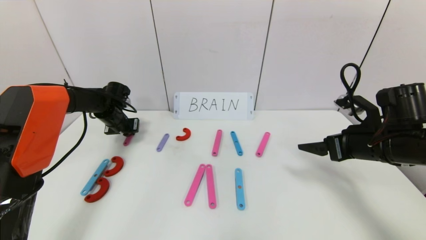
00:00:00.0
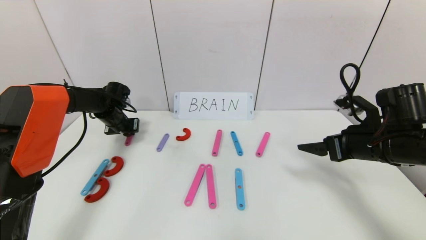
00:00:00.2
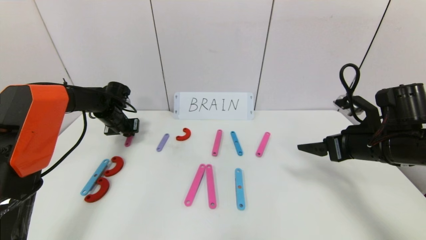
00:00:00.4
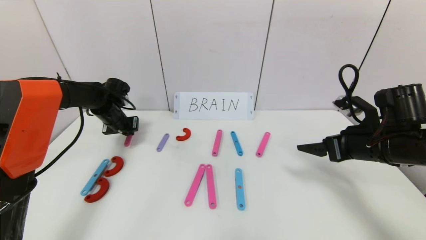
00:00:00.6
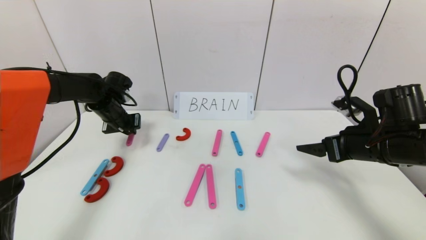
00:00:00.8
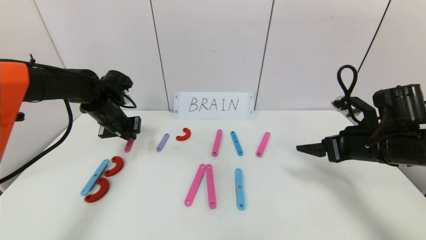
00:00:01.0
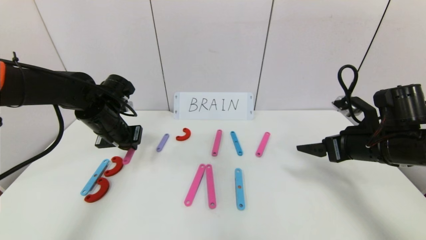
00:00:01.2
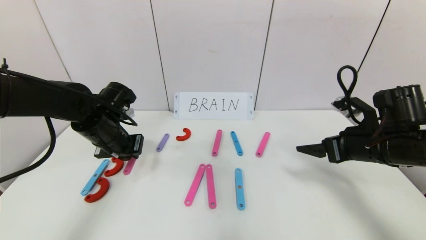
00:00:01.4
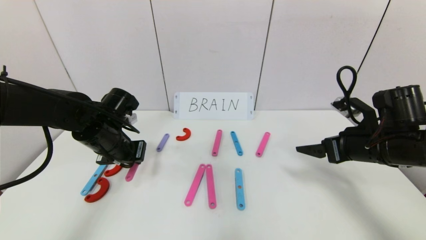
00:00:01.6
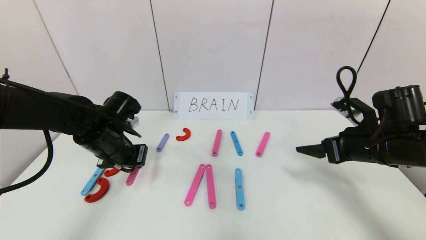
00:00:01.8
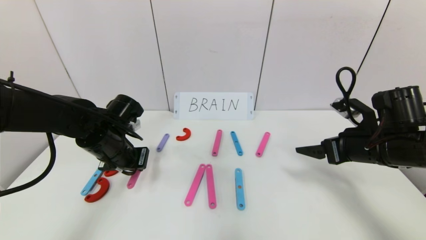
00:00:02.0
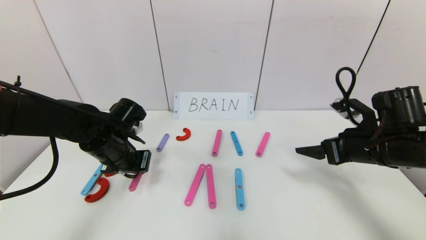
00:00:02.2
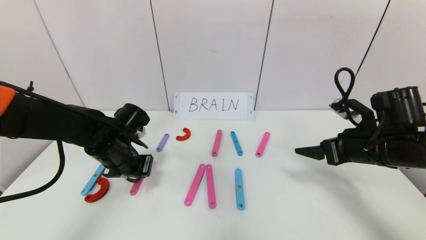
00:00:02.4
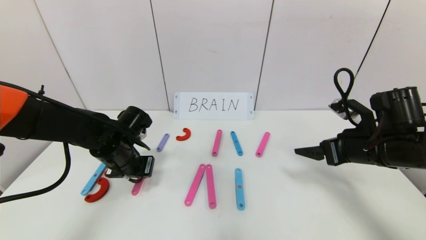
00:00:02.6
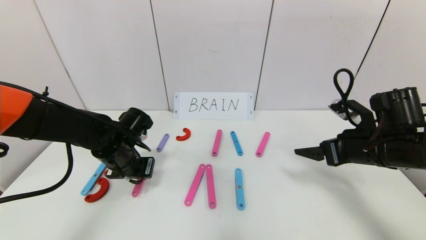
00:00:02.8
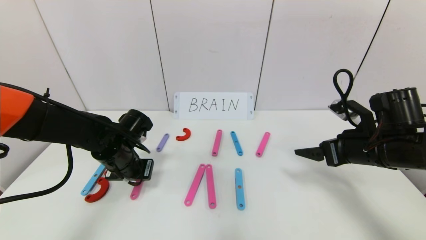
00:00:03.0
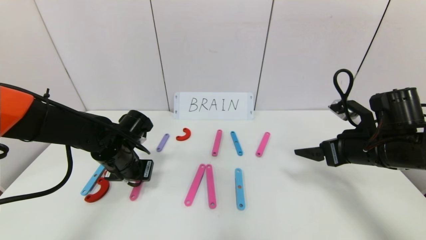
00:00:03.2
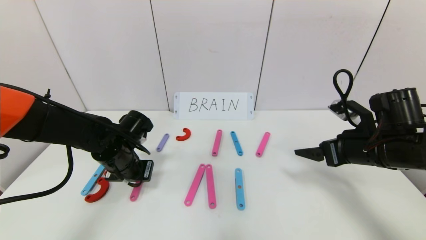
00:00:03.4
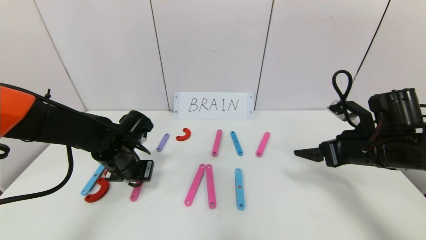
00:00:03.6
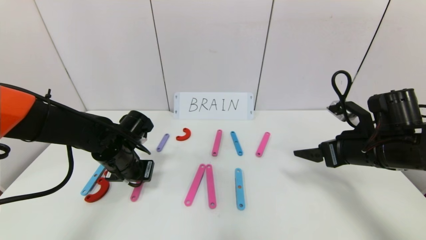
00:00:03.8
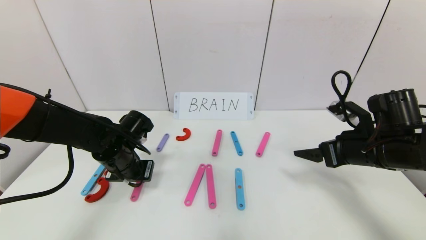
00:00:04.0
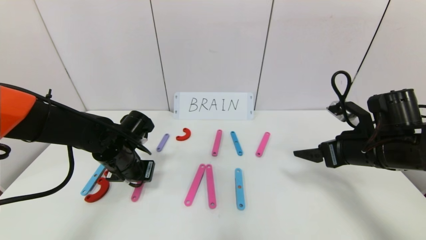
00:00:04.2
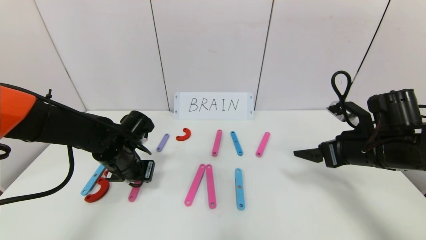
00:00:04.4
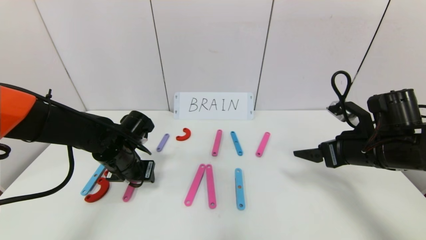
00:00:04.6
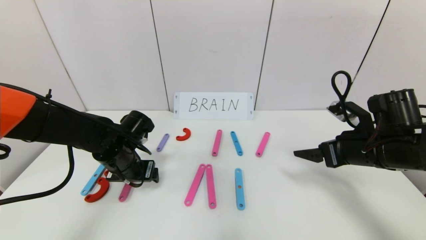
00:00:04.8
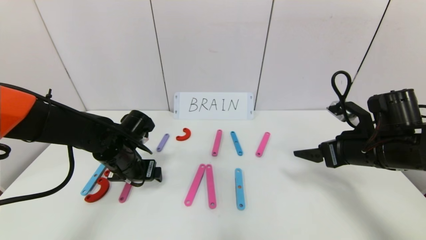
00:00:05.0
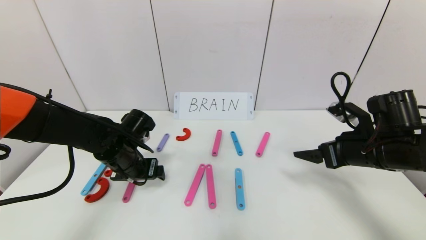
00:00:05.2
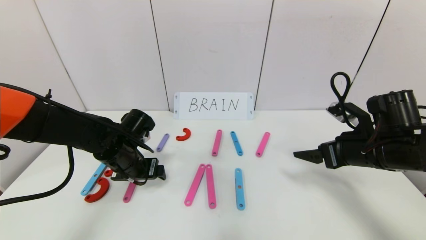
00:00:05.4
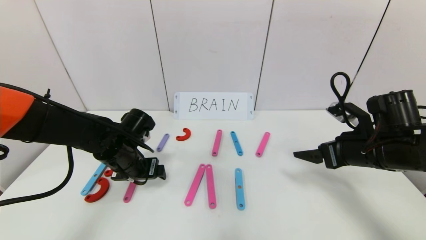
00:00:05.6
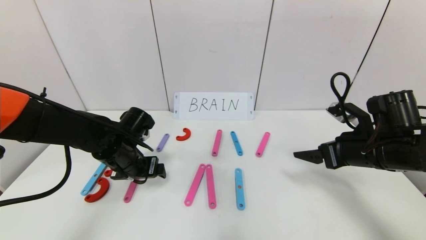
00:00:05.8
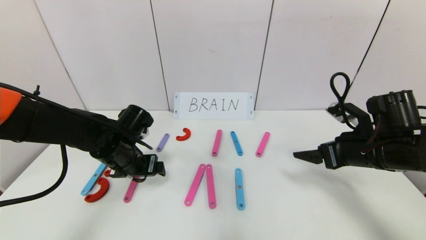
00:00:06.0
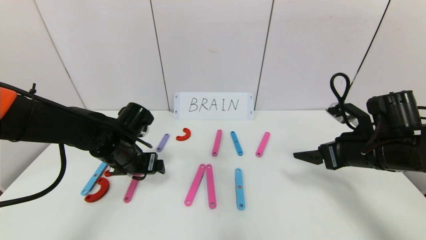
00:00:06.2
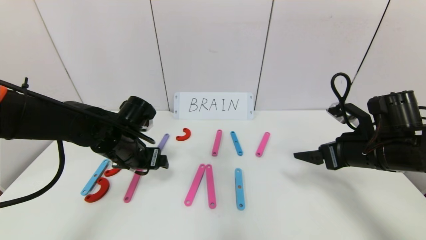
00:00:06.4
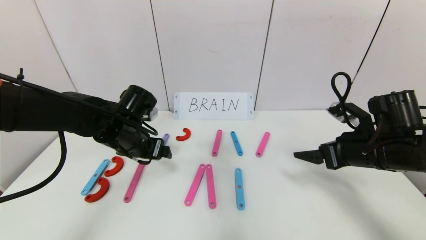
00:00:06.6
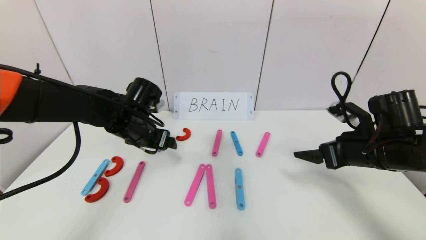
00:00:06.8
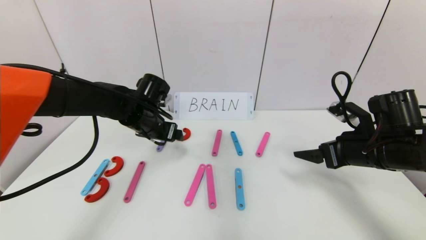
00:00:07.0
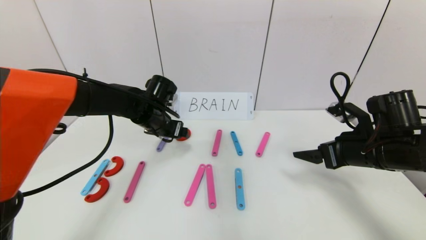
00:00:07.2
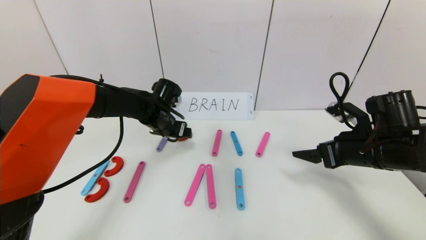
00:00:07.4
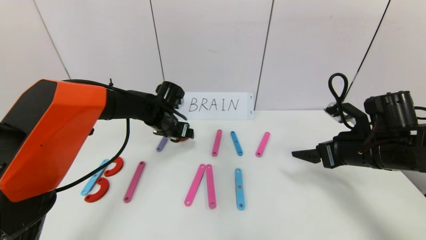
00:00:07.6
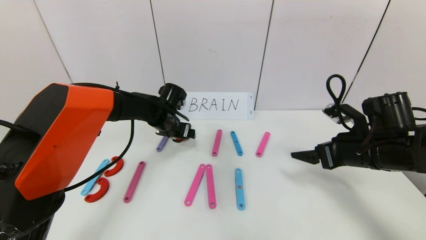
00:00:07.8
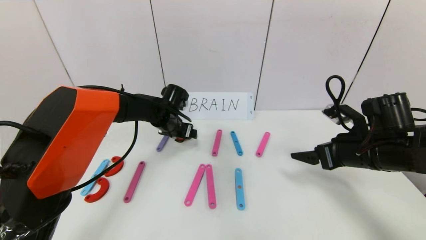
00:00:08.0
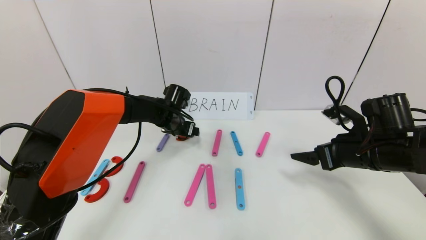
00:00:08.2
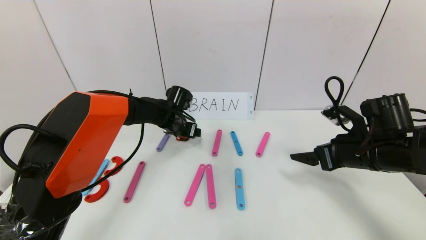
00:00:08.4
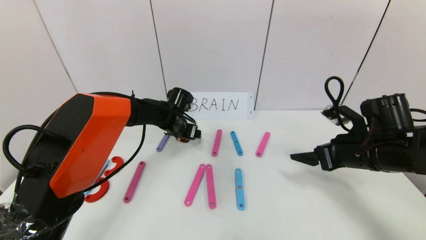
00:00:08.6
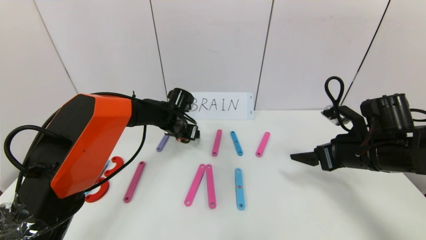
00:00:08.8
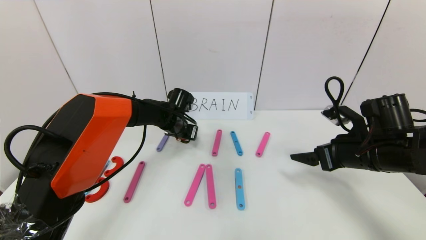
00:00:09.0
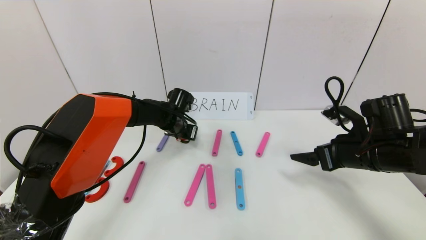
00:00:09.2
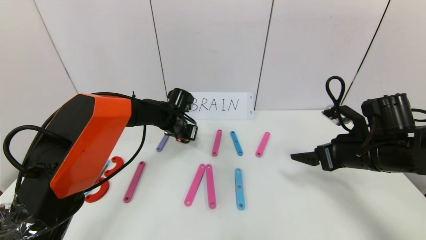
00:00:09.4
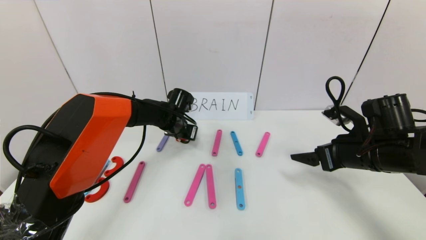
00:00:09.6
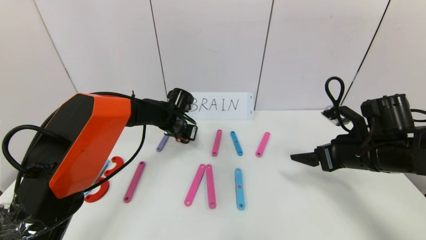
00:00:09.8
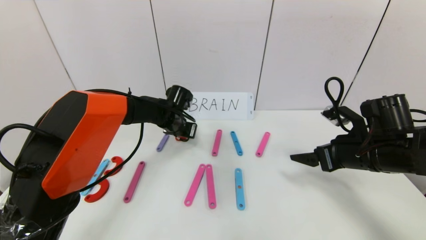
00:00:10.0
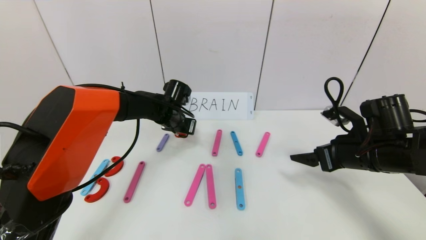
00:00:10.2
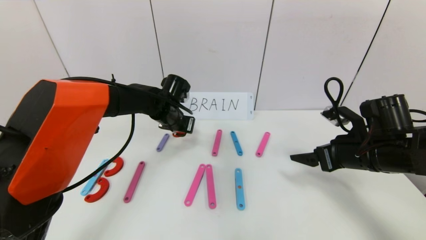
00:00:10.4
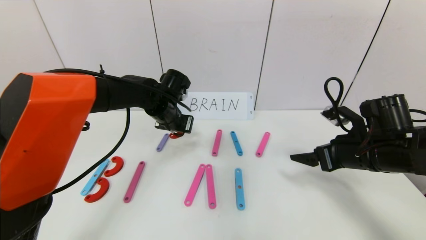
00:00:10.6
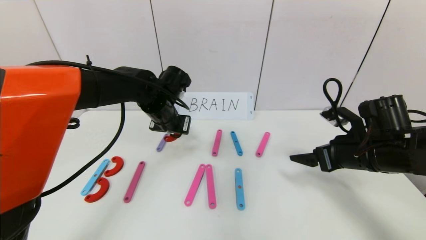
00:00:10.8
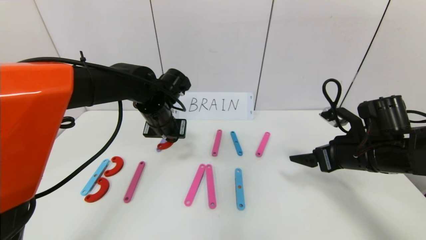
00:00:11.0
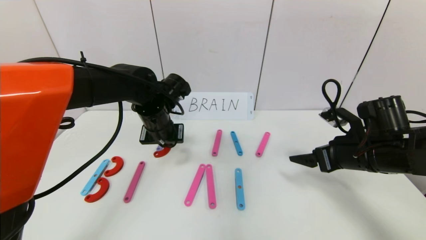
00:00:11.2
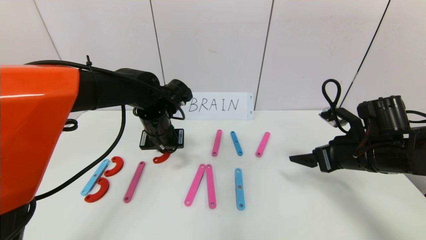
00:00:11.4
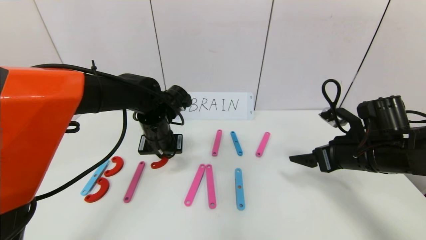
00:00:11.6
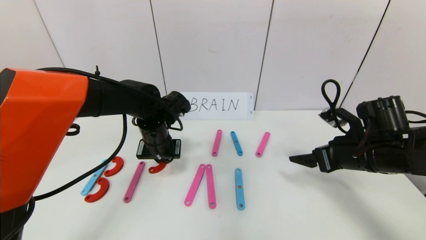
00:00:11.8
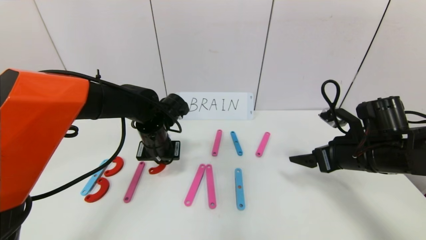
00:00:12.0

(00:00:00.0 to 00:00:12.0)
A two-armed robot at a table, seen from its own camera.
Task of the whole recording: rearrange the word baai as brain.
00:00:00.0 - 00:00:01.6: The left gripper shifts some 20 cm backward and to the right.
00:00:01.6 - 00:00:03.0: The grippers move only a little.
00:00:03.0 - 00:00:04.4: Both grippers stay put.
00:00:04.4 - 00:00:06.0: The left gripper opens.
00:00:06.0 - 00:00:07.6: The left gripper is displaced forward and to the right by some 15 cm.
00:00:07.6 - 00:00:09.0: The left gripper closes.
00:00:09.0 - 00:00:10.4: The left gripper goes about 5 cm upward, and closes its fingers.
00:00:10.4 - 00:00:12.0: The left gripper travels backward by approximately 5 cm.

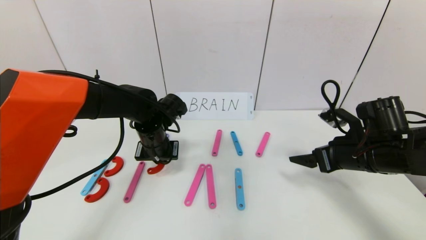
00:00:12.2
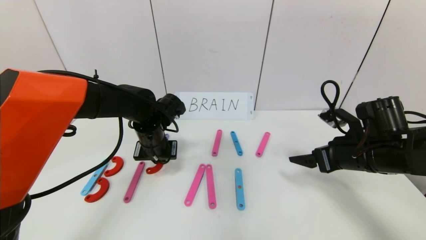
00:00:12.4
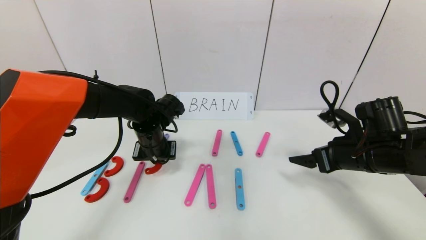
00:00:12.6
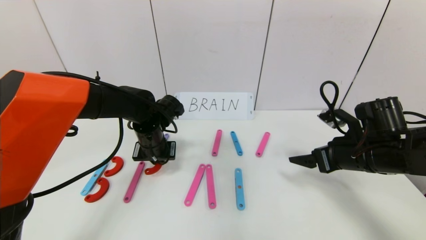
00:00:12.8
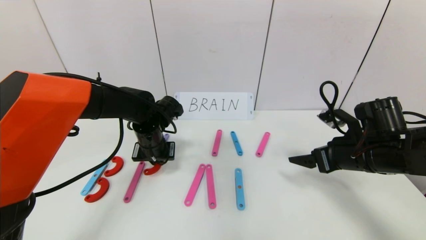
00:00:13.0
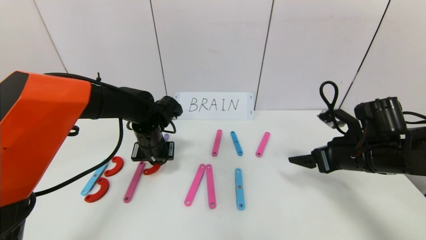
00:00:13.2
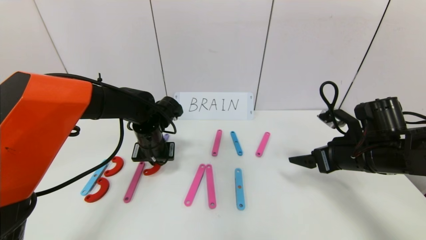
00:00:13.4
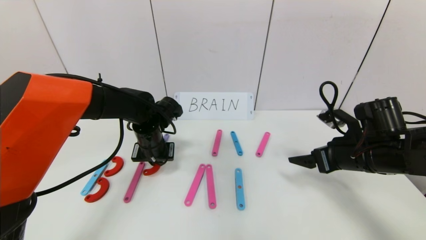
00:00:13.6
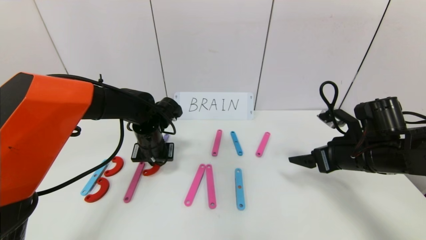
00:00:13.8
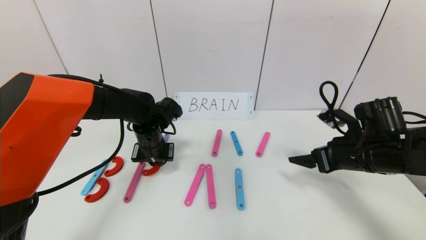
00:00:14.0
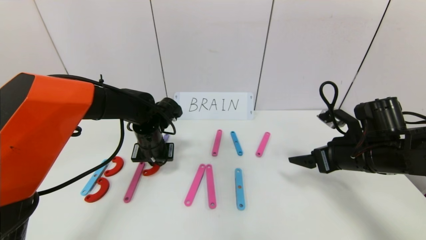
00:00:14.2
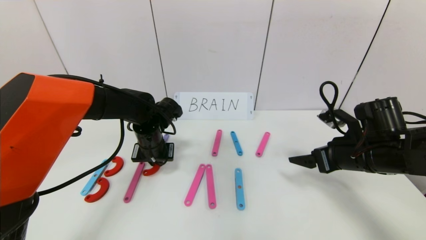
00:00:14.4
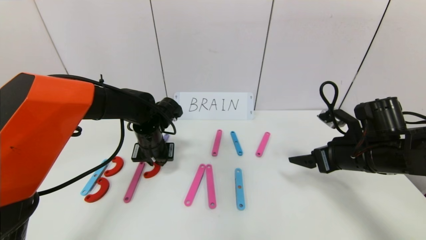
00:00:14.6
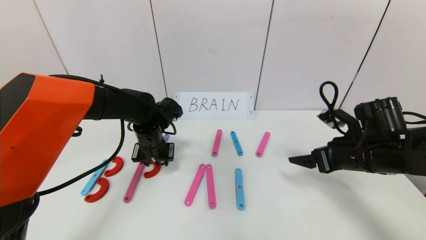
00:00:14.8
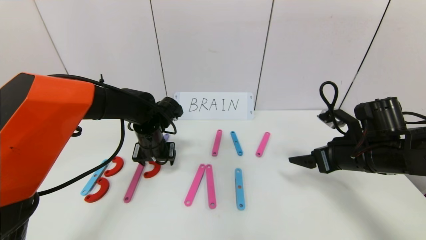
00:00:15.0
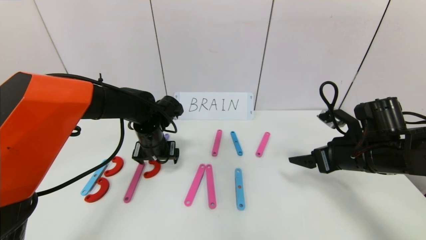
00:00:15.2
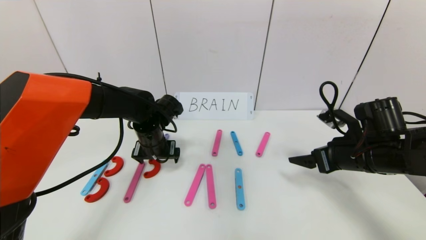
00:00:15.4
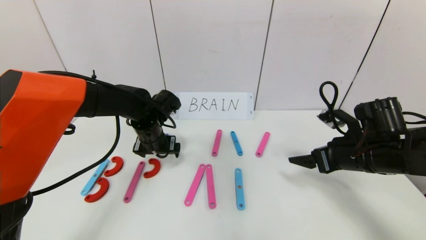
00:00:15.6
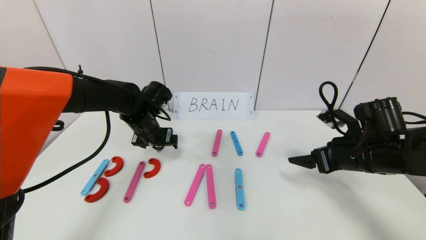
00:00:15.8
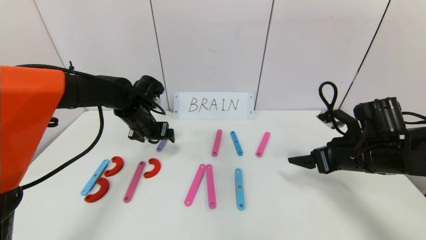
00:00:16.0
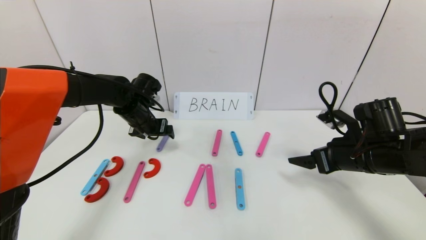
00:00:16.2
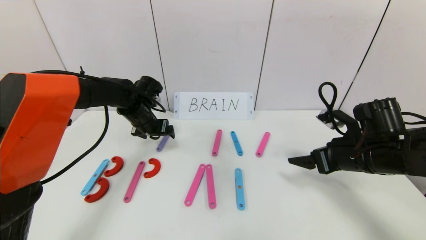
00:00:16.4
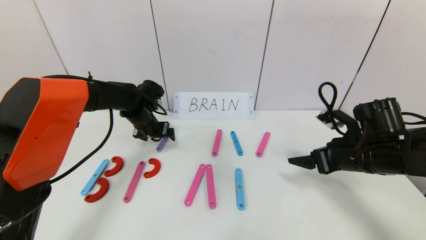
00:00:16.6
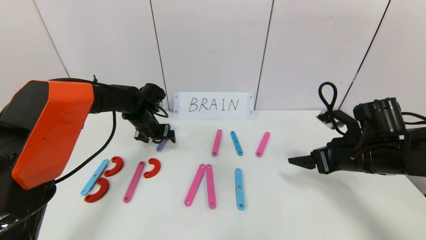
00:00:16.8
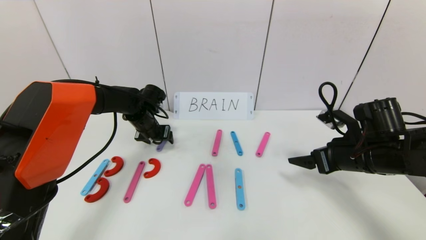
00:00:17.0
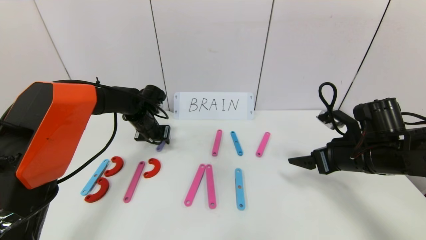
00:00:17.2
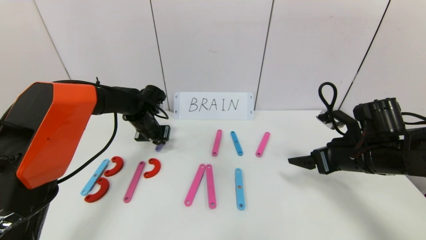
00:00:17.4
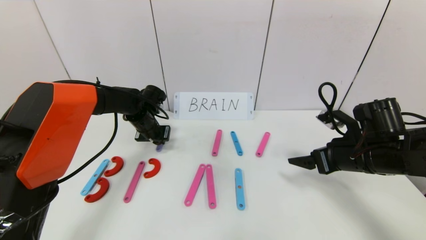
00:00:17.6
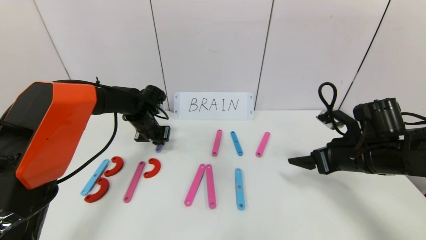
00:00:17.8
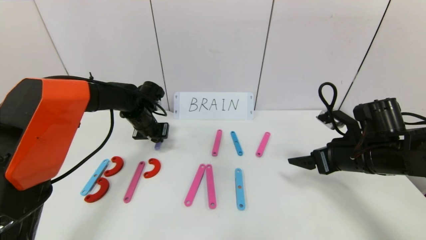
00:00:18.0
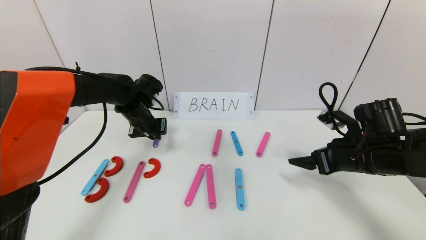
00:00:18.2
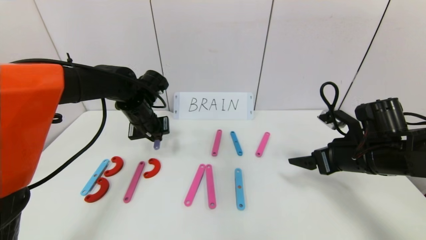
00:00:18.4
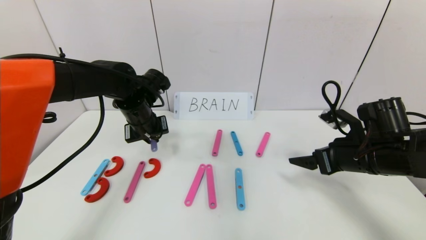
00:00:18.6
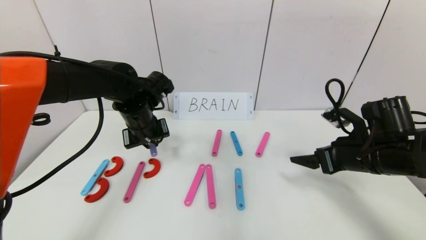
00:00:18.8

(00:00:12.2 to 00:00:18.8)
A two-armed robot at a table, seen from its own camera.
Task of the whole recording: rearrange the word baai as brain.
00:00:12.2 - 00:00:13.8: There are only small adjustments of the grippers.
00:00:13.8 - 00:00:15.4: The left gripper opens up.
00:00:15.4 - 00:00:17.2: The left gripper heads forward, covering approximately 10 cm, and closes up.
00:00:17.2 - 00:00:18.8: The left gripper travels backward and upward by roughly 10 cm, and closes its fingers.
